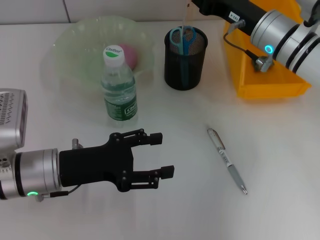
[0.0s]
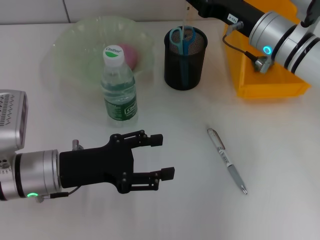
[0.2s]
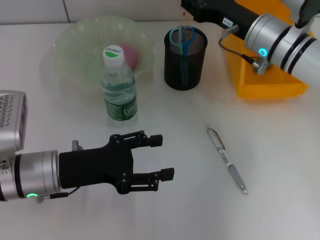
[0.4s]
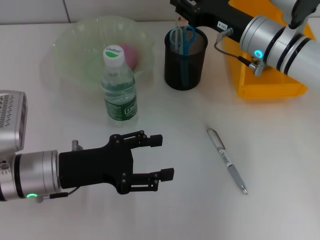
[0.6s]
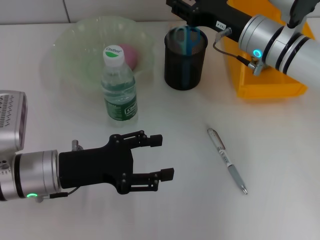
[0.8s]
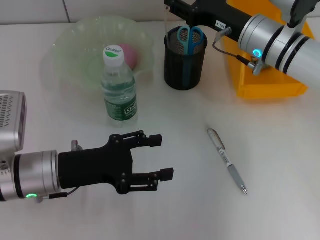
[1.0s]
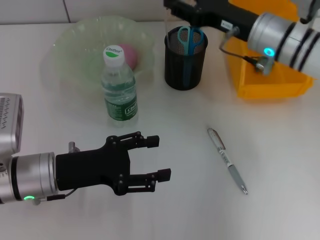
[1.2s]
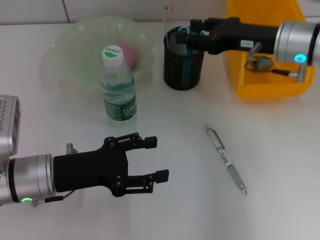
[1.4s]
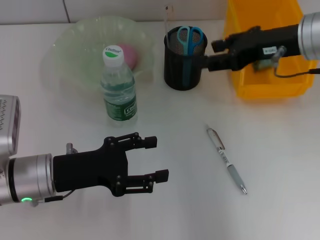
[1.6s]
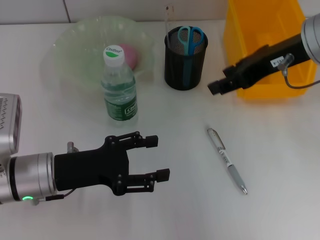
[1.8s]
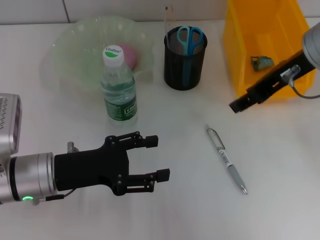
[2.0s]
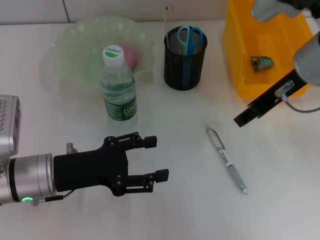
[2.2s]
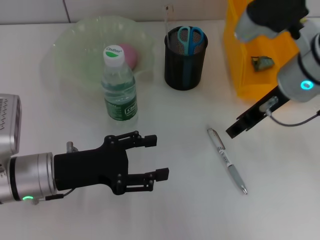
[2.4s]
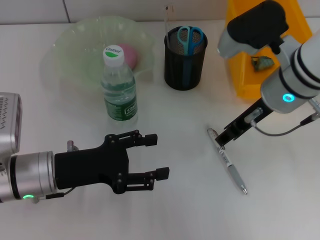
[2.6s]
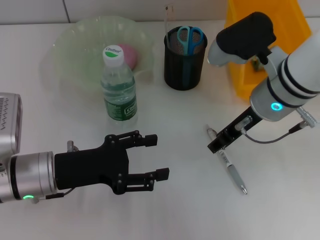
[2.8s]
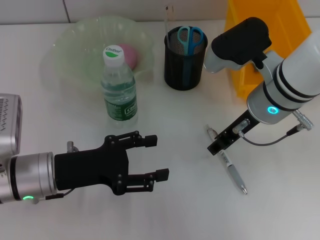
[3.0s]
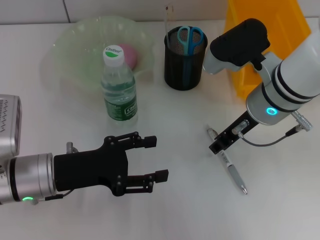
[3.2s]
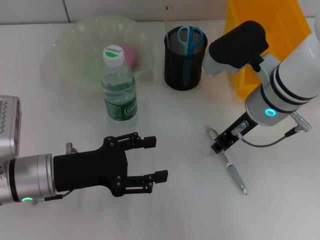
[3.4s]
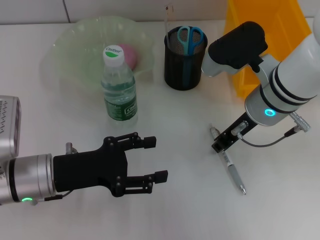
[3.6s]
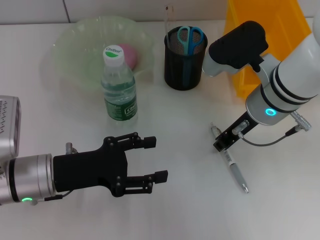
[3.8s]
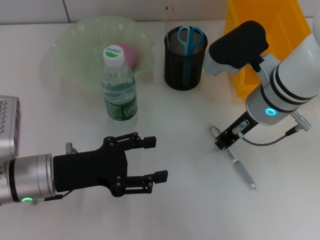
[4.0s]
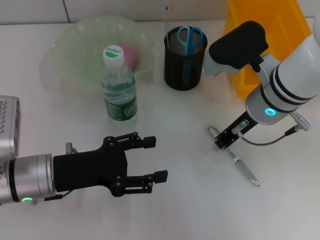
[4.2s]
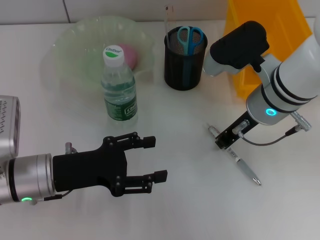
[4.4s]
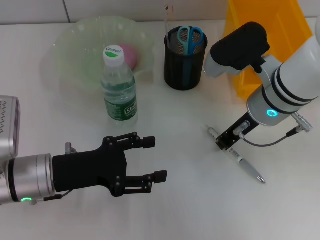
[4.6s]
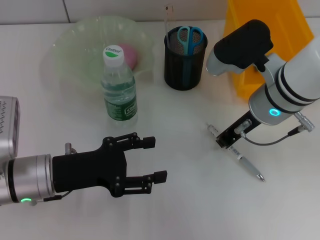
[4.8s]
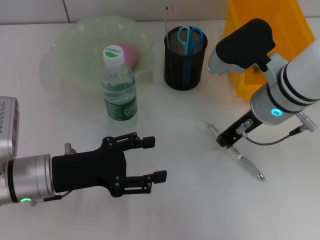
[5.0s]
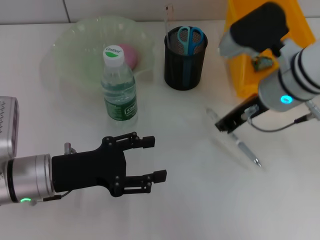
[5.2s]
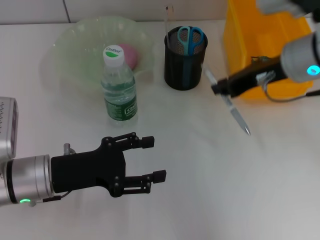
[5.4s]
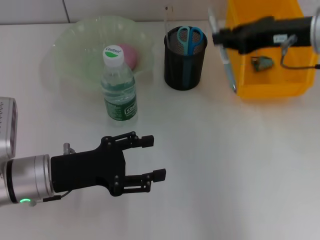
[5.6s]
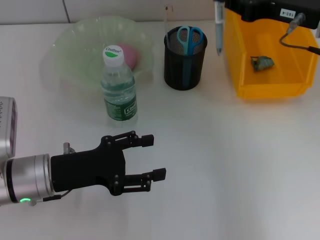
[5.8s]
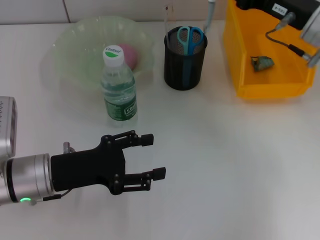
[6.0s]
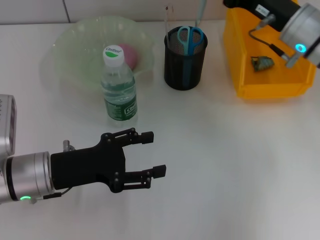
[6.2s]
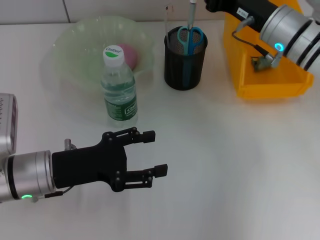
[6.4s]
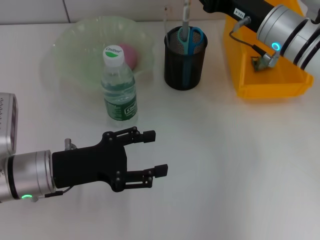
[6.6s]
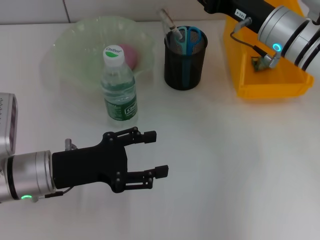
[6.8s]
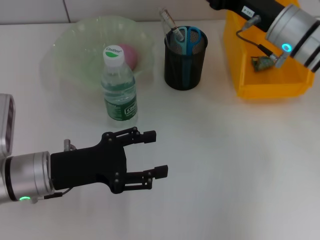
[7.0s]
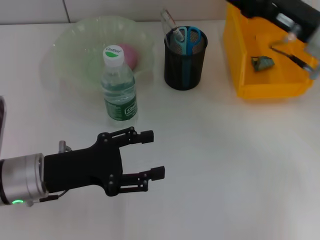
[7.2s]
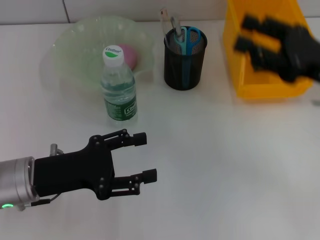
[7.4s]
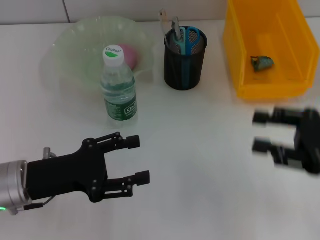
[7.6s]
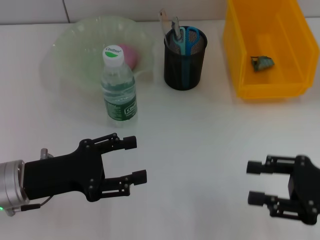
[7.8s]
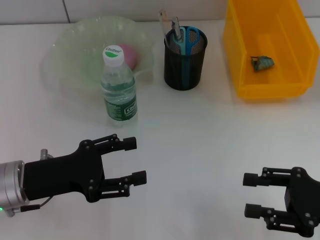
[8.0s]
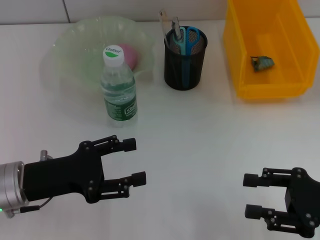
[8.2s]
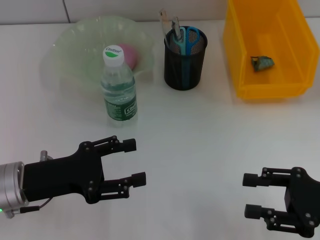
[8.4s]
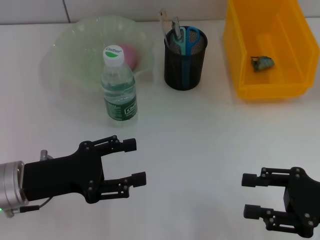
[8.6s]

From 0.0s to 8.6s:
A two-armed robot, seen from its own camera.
Step, from 1.0s to 4.8s: Grab the gray spring-action pen with the right hand.
Step, from 5.0s to 7.4s: Place the gray spring-action pen into the pen holder with the right hand.
From 1.4s to 2.8s: The right gripper goes roughly 5 cm to the left, and reaches roughly 5 cm upward, then returns.
From 2.8s to 4.4s: The right gripper closes.
From 4.4s to 5.8s: The right gripper is displaced to the right and upward by roughly 10 cm.
From 5.8s to 7.2s: The right gripper opens.
From 7.2s to 8.6s: The right gripper moves backward and downward, about 20 cm.
